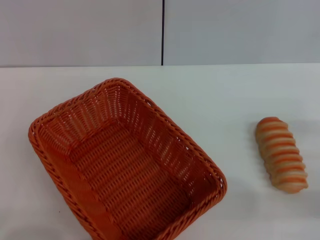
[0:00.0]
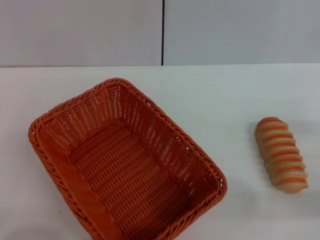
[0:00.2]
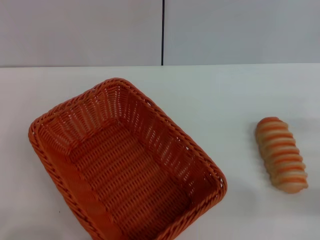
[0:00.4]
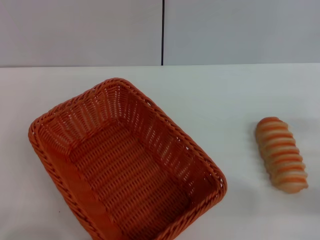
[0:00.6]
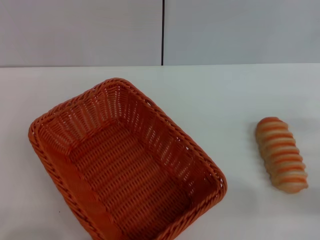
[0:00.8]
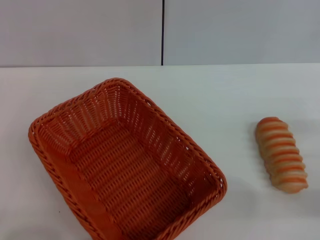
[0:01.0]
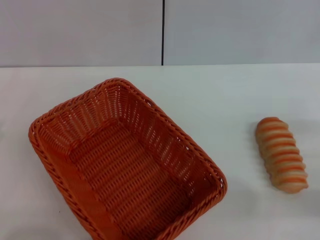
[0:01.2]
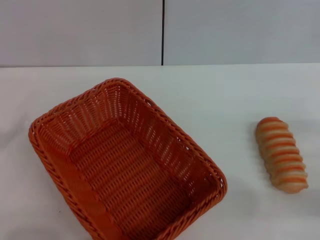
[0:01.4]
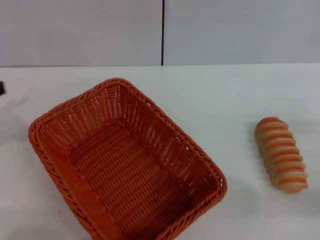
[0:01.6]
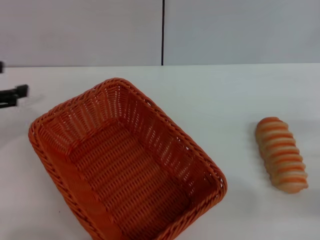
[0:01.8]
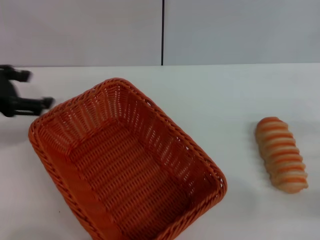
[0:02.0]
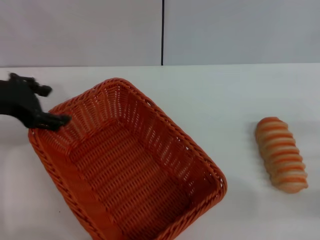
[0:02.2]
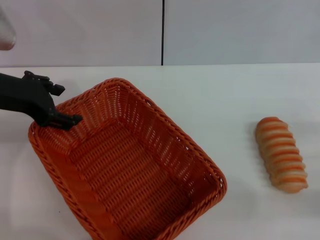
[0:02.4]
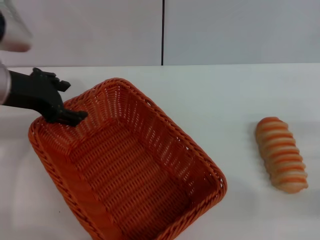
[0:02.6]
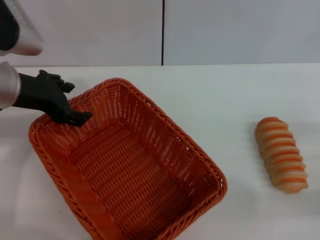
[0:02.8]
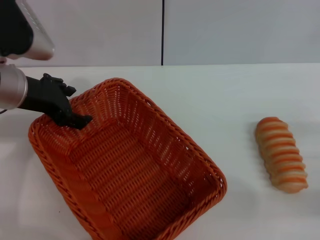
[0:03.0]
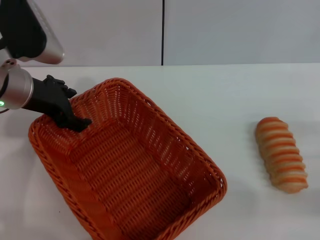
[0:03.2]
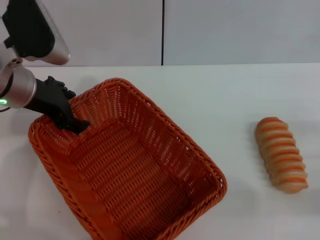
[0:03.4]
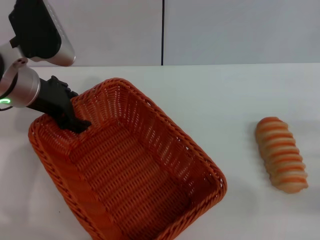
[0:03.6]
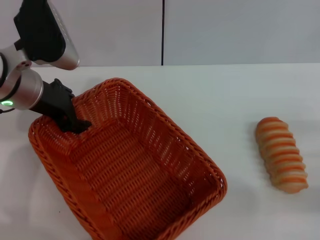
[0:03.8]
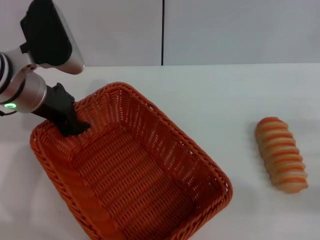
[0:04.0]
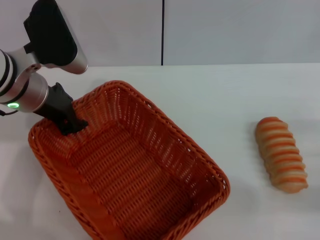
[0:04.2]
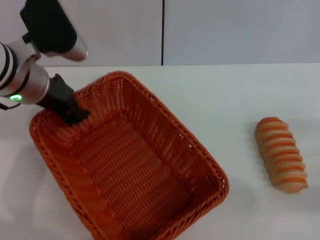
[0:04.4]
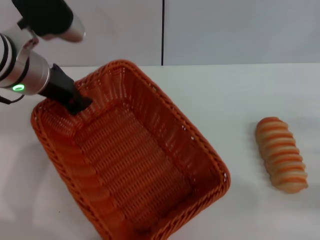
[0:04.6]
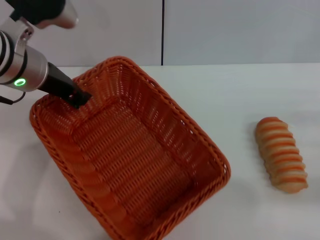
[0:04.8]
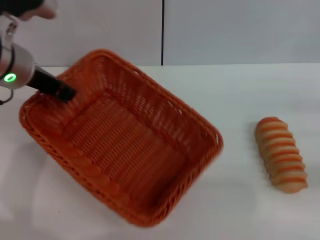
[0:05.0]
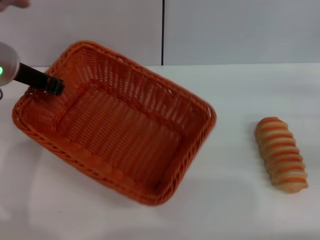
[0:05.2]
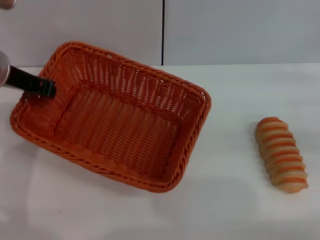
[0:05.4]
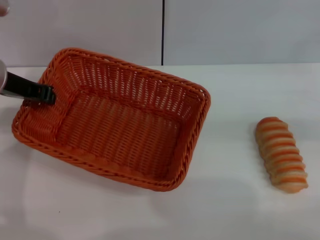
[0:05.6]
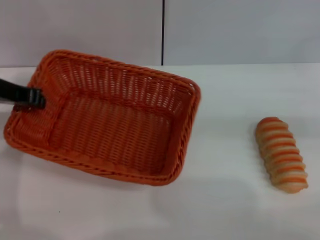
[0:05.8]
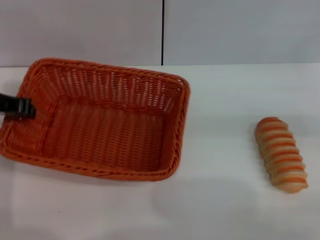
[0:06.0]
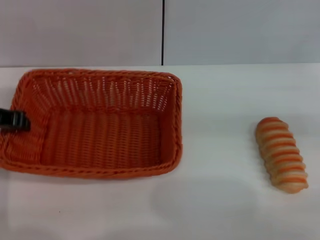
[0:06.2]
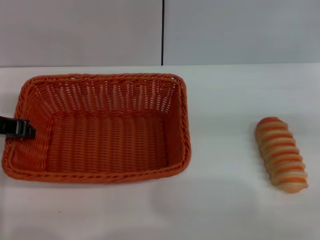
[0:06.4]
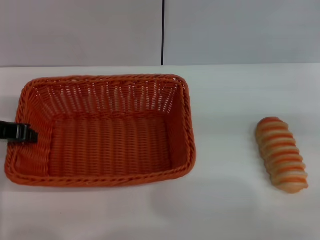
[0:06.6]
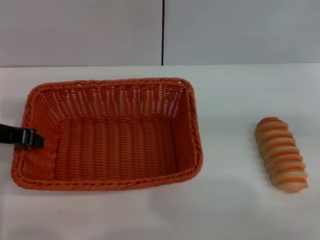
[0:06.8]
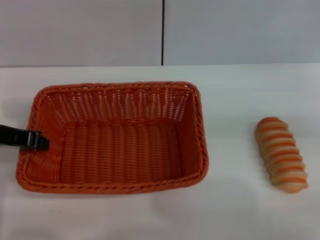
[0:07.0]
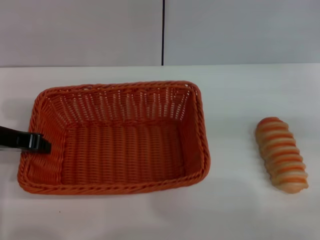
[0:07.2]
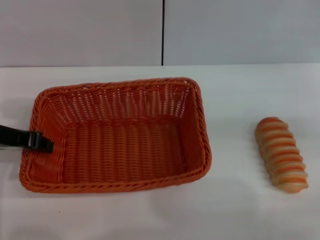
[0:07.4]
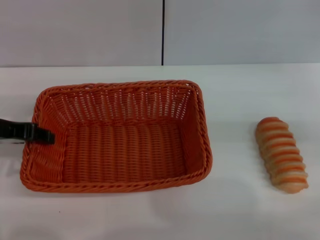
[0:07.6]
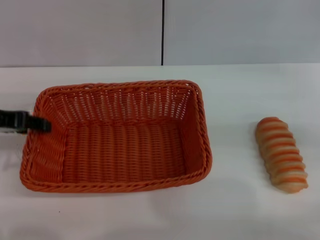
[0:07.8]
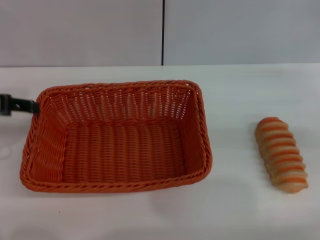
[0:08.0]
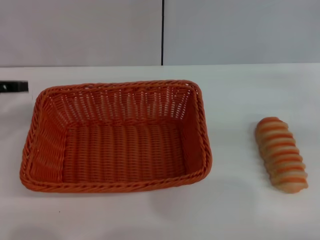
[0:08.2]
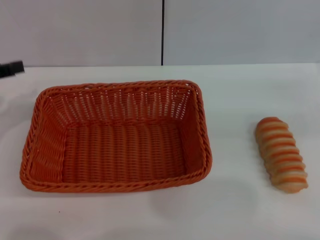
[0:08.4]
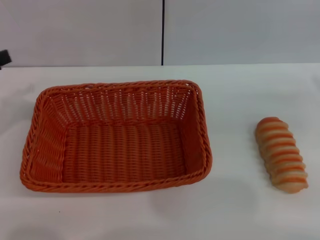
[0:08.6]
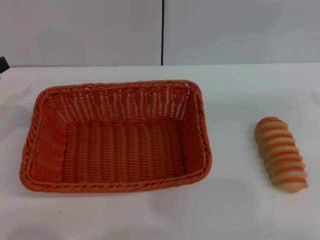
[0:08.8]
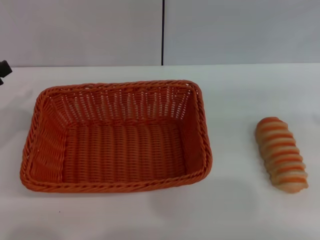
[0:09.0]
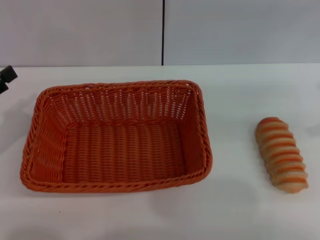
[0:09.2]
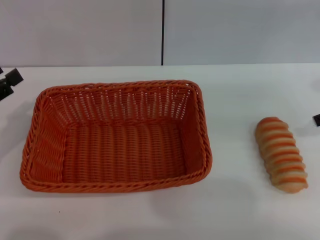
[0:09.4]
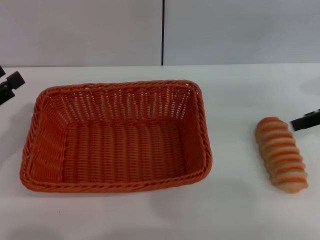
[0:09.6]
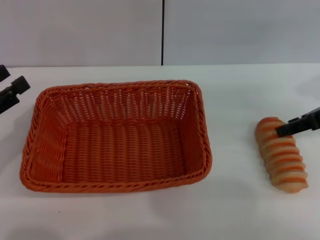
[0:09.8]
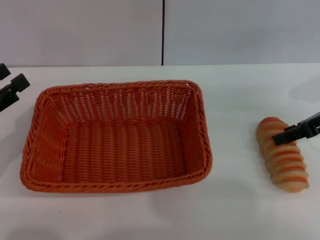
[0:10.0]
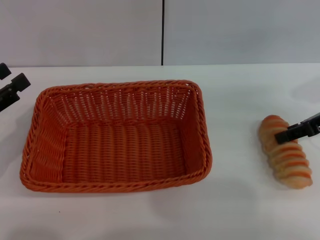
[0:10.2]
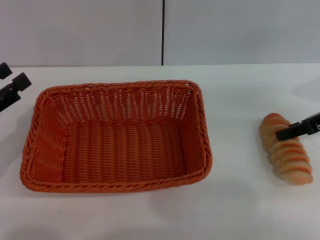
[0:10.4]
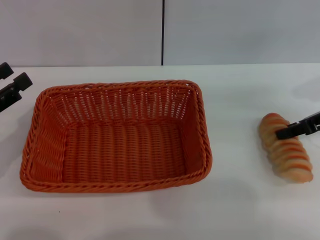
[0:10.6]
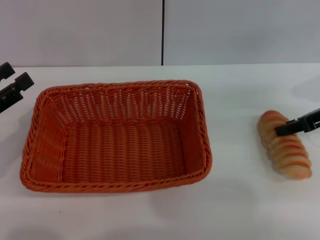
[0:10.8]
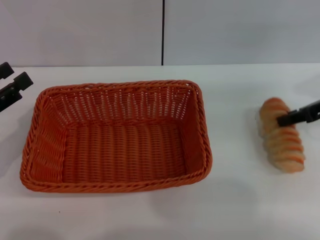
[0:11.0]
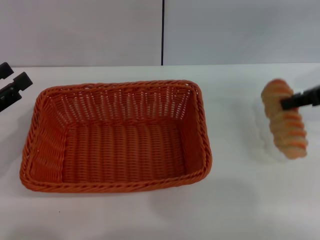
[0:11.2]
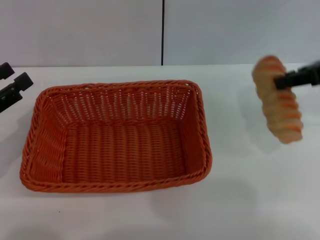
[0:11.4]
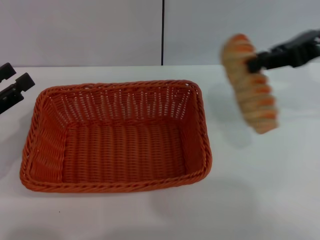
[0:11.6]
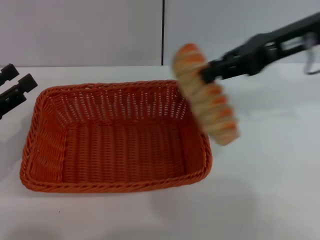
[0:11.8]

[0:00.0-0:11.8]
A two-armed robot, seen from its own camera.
Step, 0:00.0 to 0:04.8: Pick up the light basket with the left gripper.
Step, 0:05.2 to 0:08.2: Place the light basket in the center of view with the left gripper.
Step, 0:08.6 to 0:11.4: Pick up the long bread with the right gripper.
0:01.4 to 0:03.0: The left gripper travels to the right and forward by some 20 cm.
0:03.0 to 0:04.4: The left gripper closes.
0:04.4 to 0:06.0: The left gripper travels to the left by approximately 10 cm. Meanwhile the right gripper shifts about 15 cm forward and upward.
0:06.0 to 0:07.4: The grippers move only a little.
0:07.4 to 0:08.8: The left gripper travels to the left by roughly 10 cm, and opens up, while the right gripper moves upward, about 10 cm.
0:08.8 to 0:10.4: The left gripper changes place by some 5 cm. The right gripper moves downward, to the left and forward, some 15 cm.
0:10.4 to 0:11.8: The right gripper heads upward and to the left, covering about 15 cm, and closes.

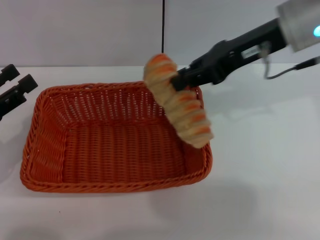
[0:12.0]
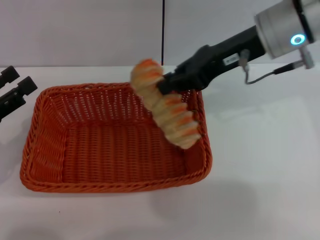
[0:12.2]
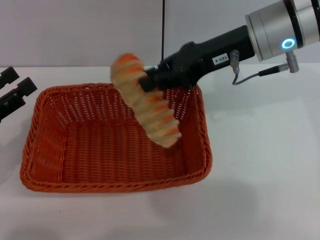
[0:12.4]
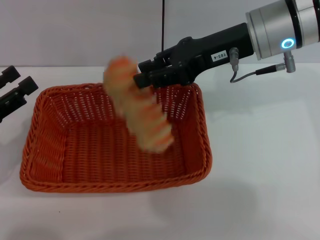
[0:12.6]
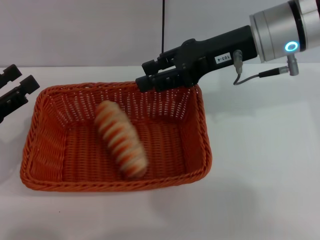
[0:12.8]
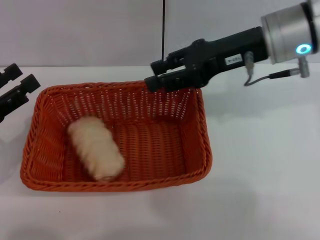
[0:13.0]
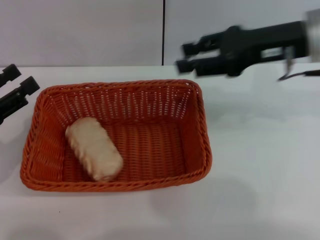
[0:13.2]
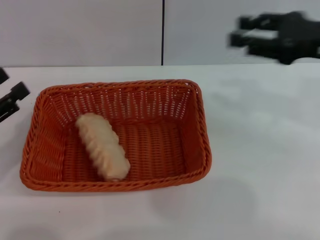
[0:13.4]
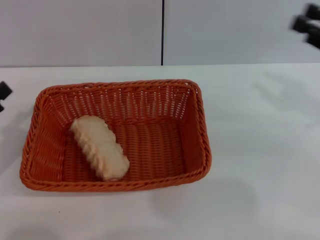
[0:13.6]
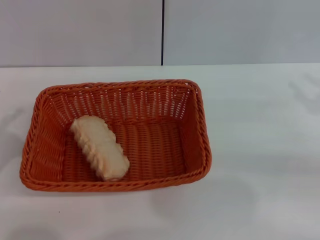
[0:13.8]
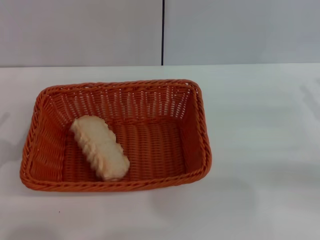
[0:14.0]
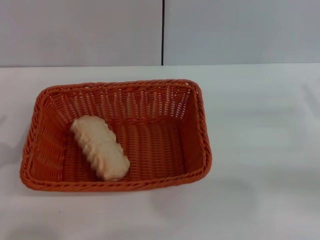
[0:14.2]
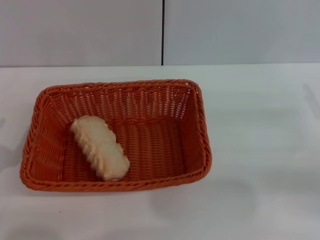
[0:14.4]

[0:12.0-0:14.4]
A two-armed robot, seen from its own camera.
Step, 0:12.0 to 0:13.0: Place the long bread into the light basket with the right gripper.
0:12.0 to 0:13.2: The right gripper opens its fingers.
0:13.2 to 0:14.4: The left gripper moves backward and downward, roughly 10 cm. Meanwhile the right gripper moves to the right, downward and backward, about 25 cm.
